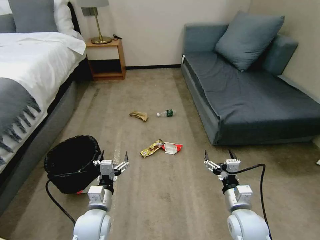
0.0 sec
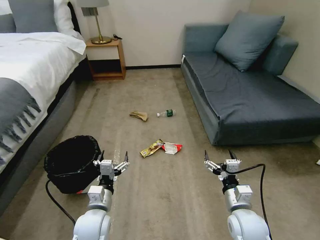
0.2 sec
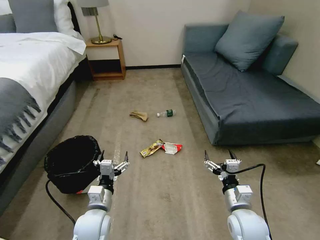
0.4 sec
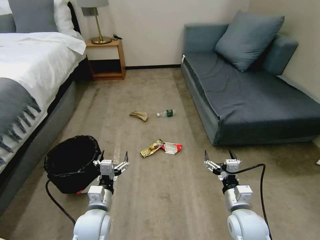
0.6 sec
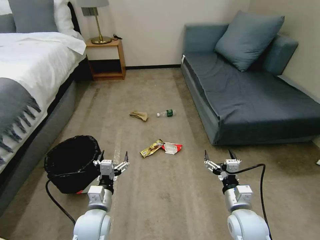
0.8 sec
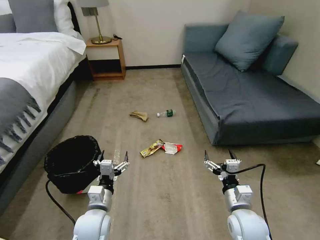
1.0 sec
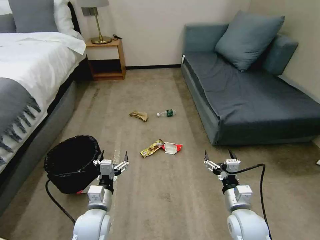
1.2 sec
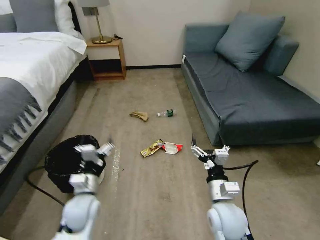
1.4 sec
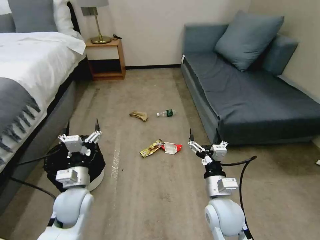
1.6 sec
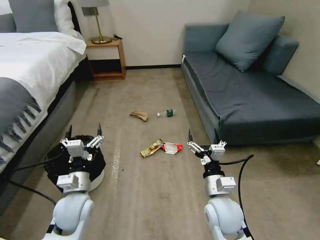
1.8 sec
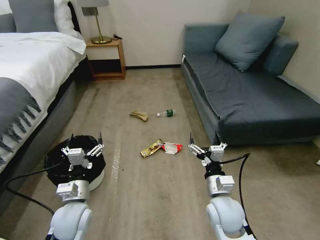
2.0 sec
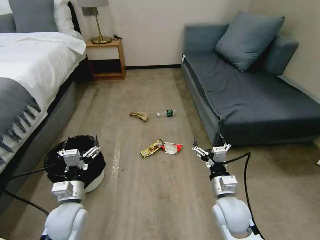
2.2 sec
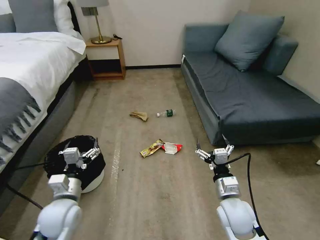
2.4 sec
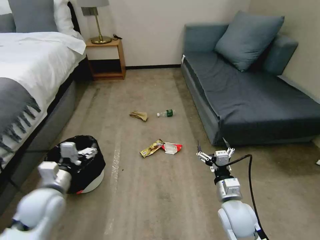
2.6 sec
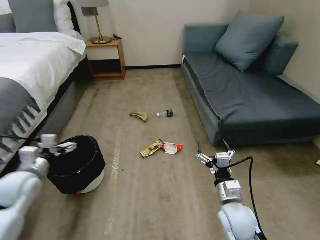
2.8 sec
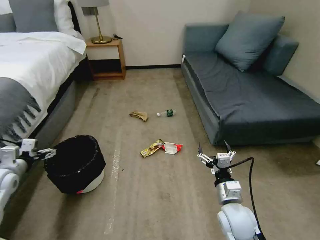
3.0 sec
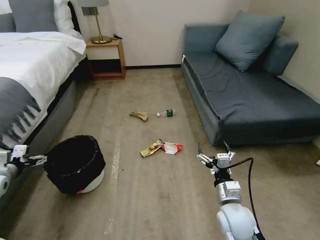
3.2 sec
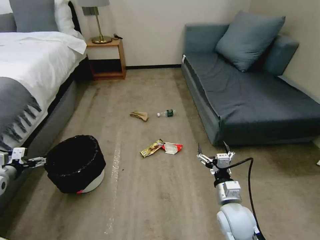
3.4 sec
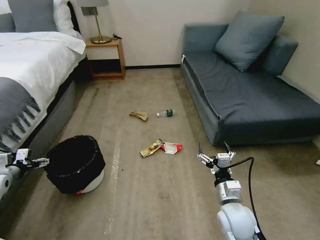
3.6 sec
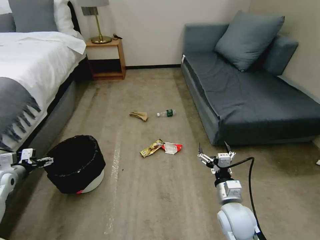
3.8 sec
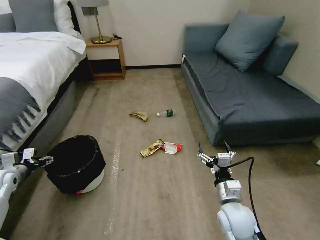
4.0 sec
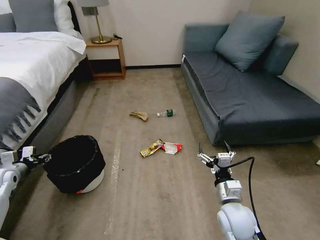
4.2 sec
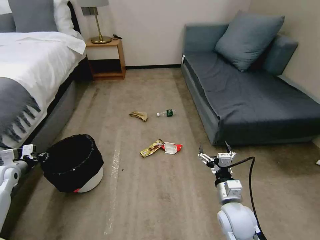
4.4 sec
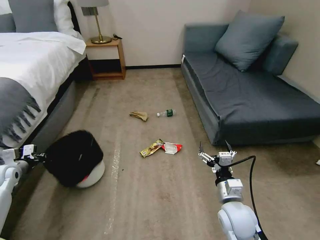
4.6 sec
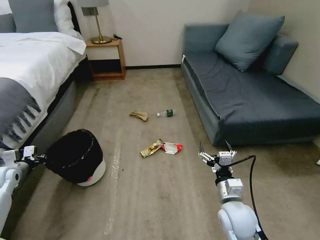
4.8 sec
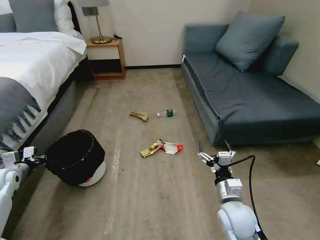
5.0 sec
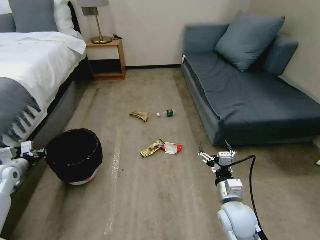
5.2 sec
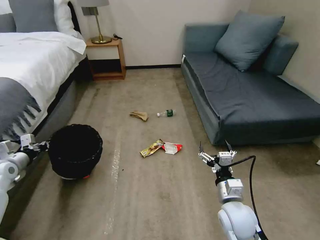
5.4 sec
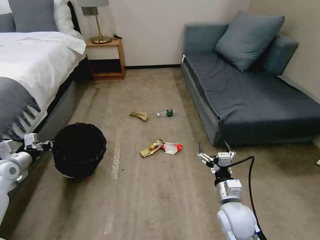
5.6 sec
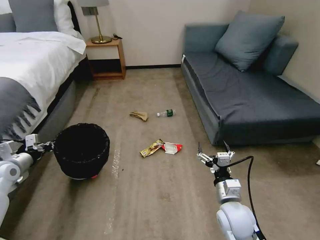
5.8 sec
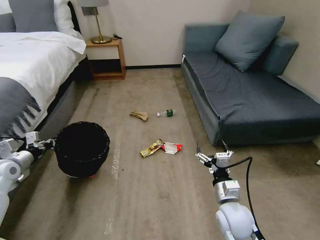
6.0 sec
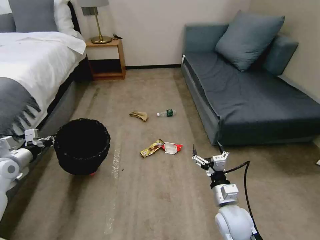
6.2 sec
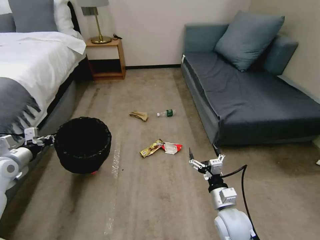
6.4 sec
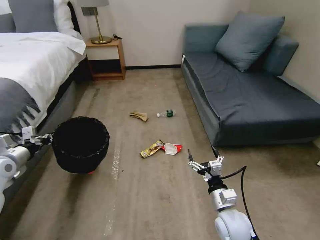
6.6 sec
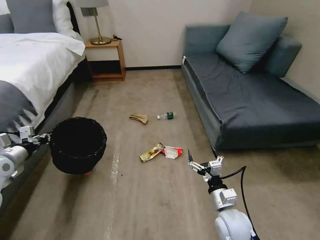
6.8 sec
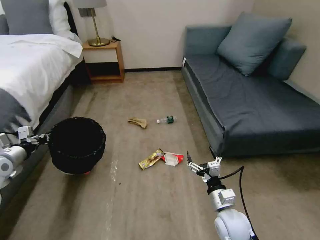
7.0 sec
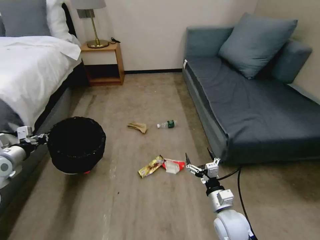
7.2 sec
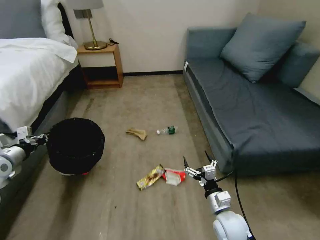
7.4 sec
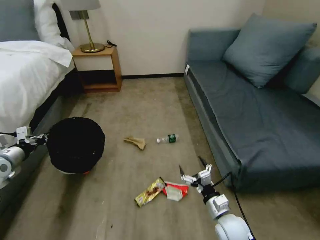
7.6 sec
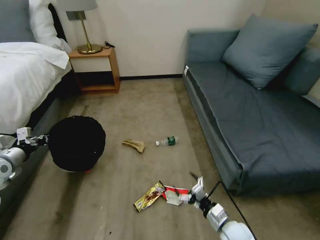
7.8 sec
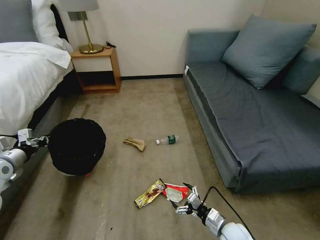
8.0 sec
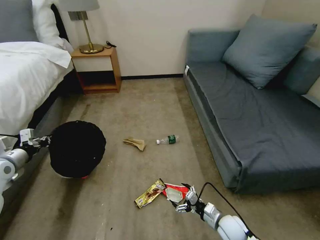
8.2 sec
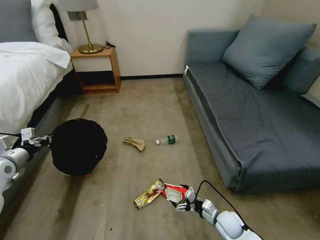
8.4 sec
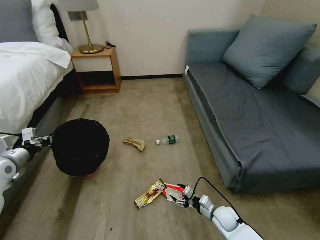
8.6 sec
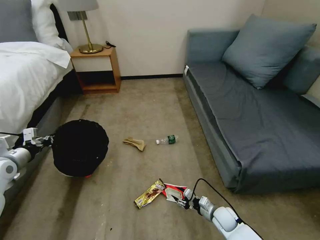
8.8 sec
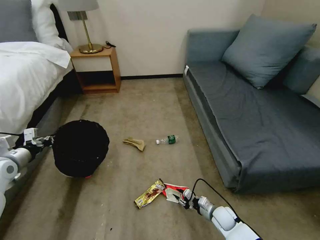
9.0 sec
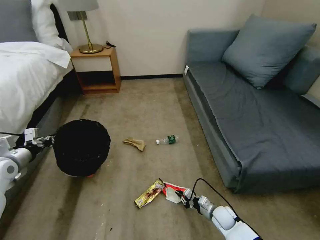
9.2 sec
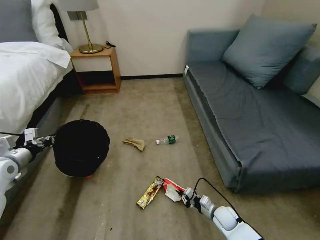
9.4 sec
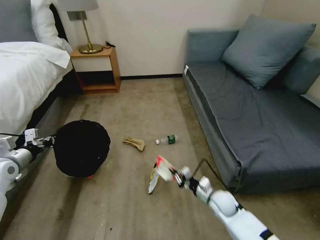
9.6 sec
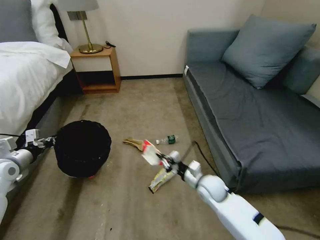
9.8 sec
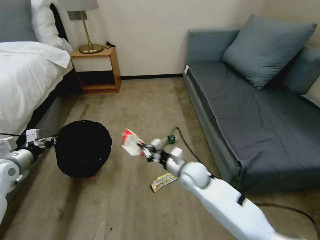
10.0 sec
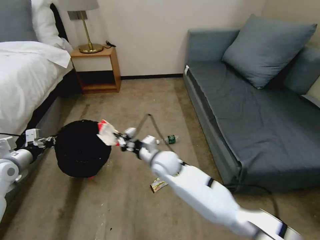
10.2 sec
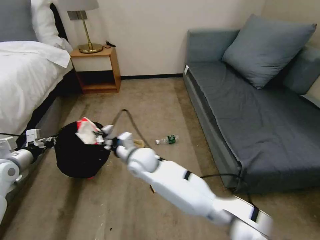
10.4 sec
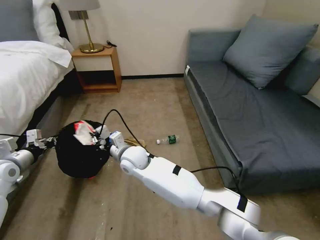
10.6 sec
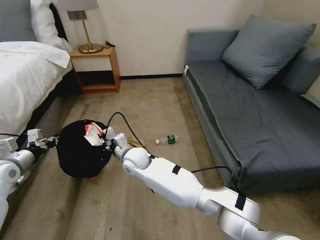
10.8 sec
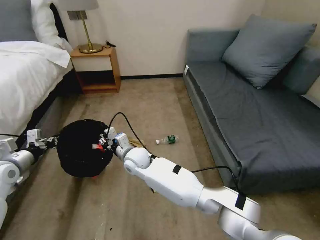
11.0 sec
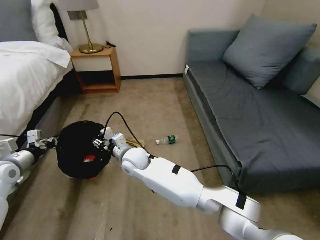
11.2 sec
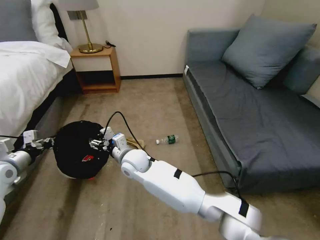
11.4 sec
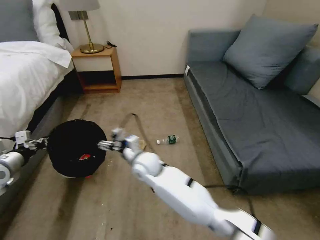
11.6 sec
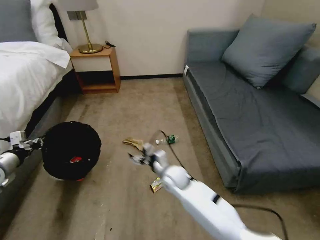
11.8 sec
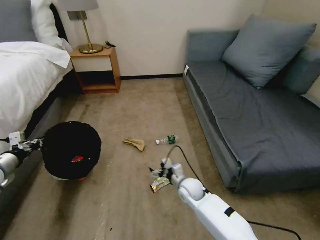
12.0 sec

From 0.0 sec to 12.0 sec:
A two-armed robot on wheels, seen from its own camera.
Task of the whole recording: Pick up the trash bin, then pick up the garbage on the floor and place it into the trash bin.
From 1.6 sec to 3.0 sec: The left gripper shifts roughly 25 cm to the left. Meanwhile the right gripper changes place by about 5 cm.
From 3.0 sec to 4.4 sec: The left gripper goes about 10 cm to the left and downward, and closes its fingers.
From 4.4 sec to 6.0 sec: The left gripper travels upward and to the right by some 10 cm.
From 6.0 sec to 7.6 sec: The right gripper is displaced downward by some 5 cm.
From 7.6 sec to 9.0 sec: The right gripper moves downward and forward, approximately 15 cm, and closes up.
From 9.0 sec to 10.4 sec: The right gripper goes approximately 40 cm to the left and upward.
From 10.4 sec to 12.0 sec: The right gripper is displaced to the right and downward by about 25 cm, and opens.

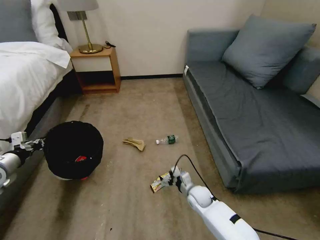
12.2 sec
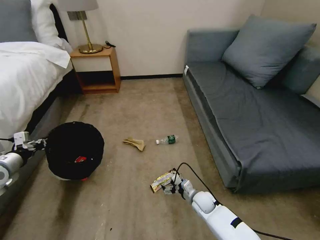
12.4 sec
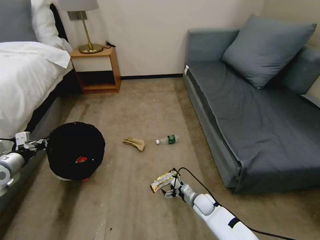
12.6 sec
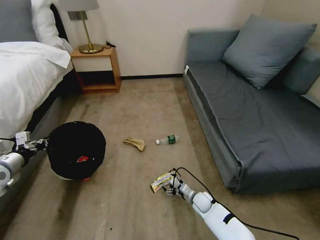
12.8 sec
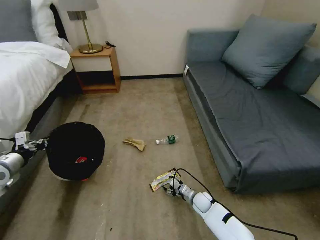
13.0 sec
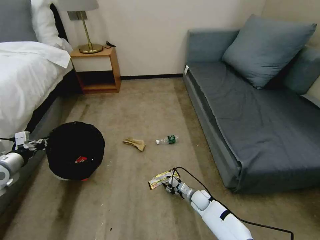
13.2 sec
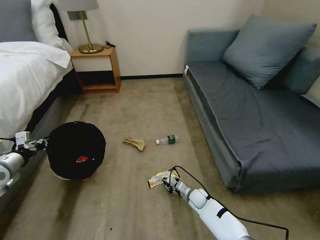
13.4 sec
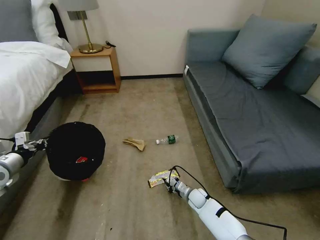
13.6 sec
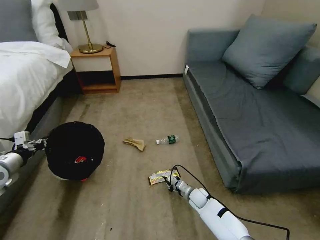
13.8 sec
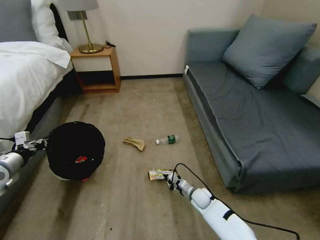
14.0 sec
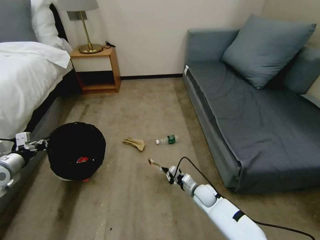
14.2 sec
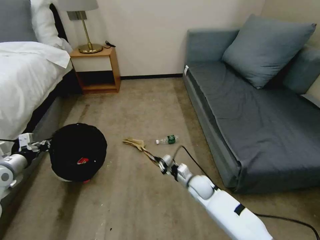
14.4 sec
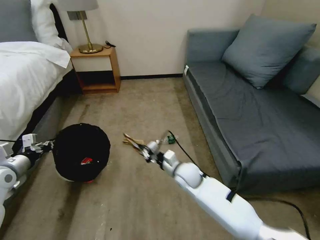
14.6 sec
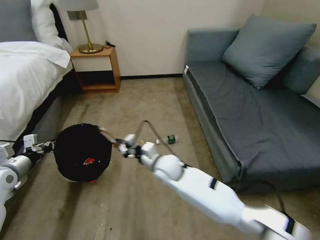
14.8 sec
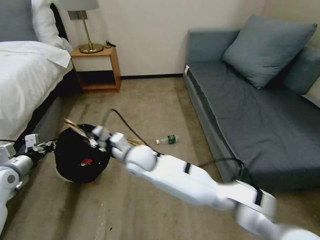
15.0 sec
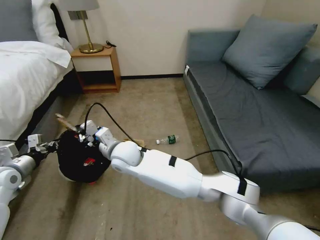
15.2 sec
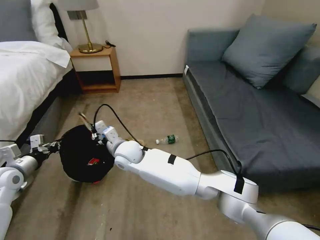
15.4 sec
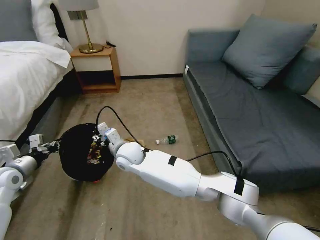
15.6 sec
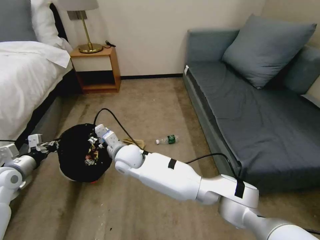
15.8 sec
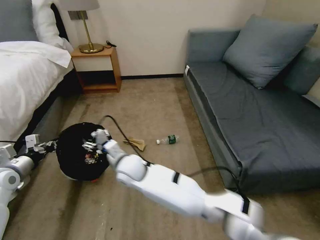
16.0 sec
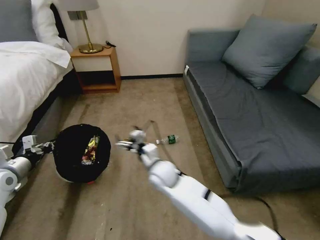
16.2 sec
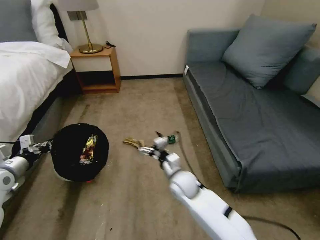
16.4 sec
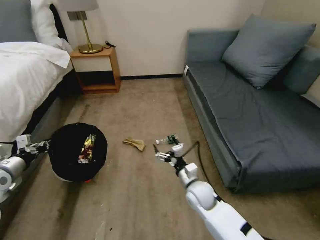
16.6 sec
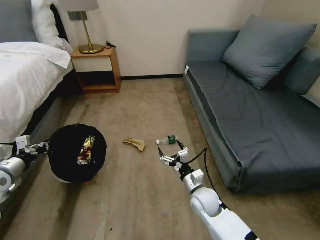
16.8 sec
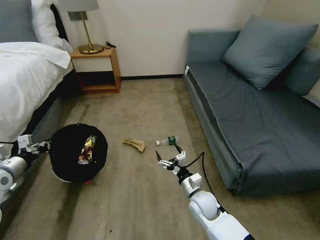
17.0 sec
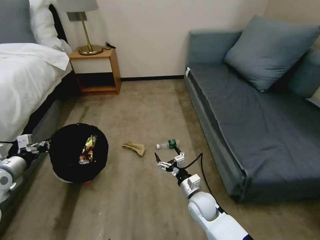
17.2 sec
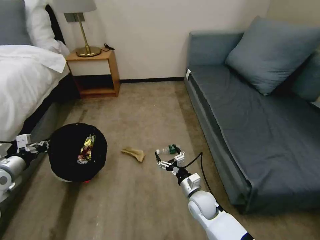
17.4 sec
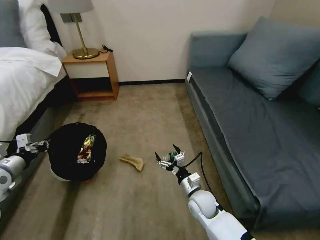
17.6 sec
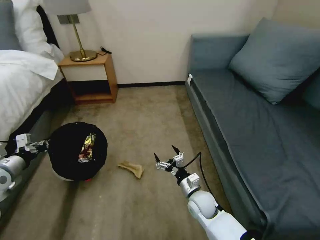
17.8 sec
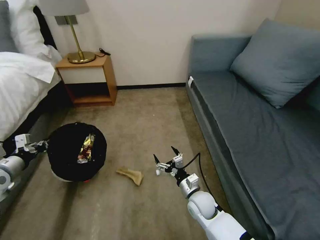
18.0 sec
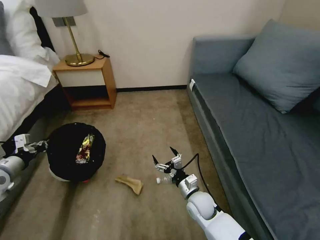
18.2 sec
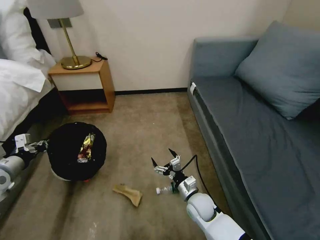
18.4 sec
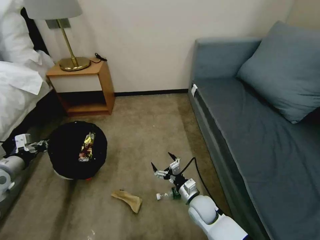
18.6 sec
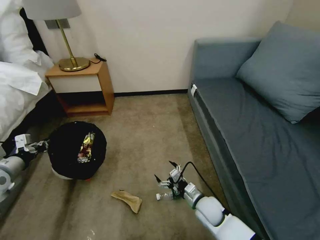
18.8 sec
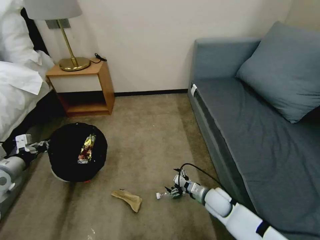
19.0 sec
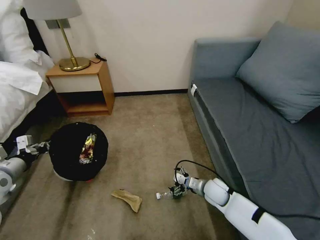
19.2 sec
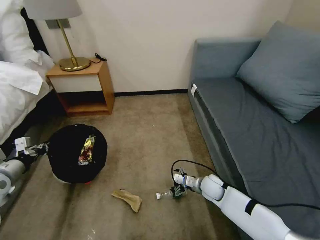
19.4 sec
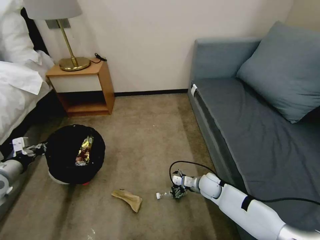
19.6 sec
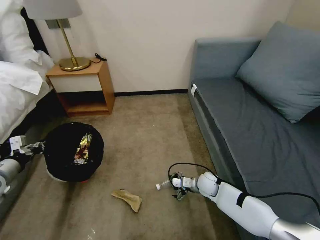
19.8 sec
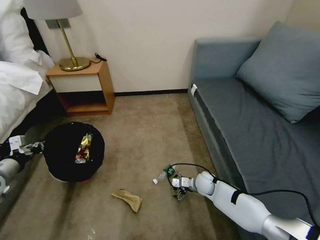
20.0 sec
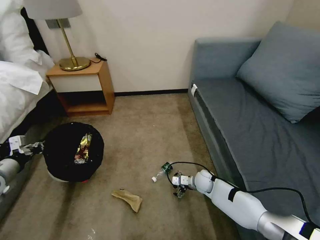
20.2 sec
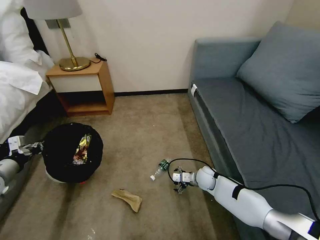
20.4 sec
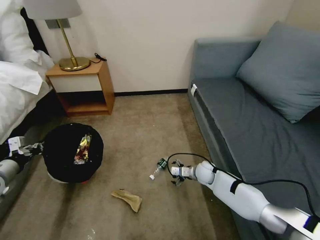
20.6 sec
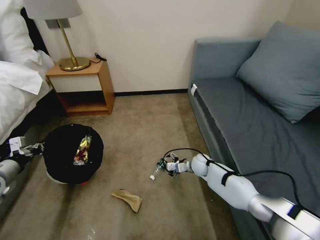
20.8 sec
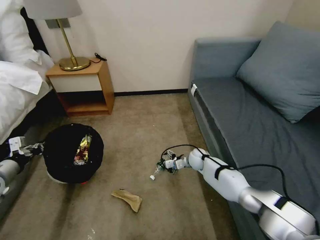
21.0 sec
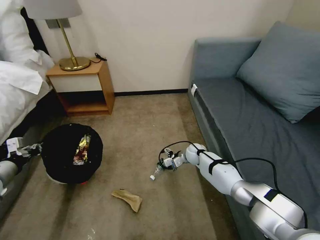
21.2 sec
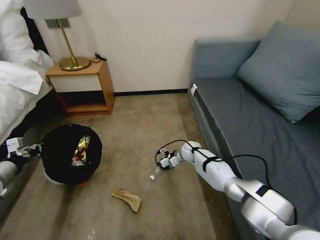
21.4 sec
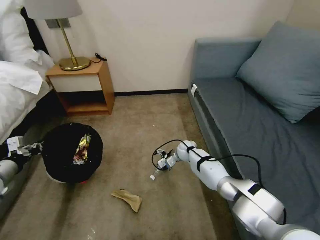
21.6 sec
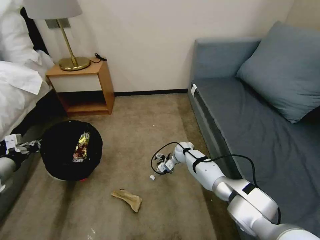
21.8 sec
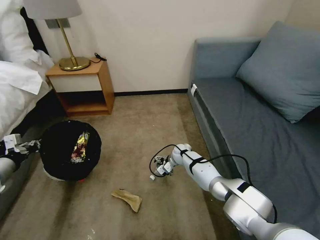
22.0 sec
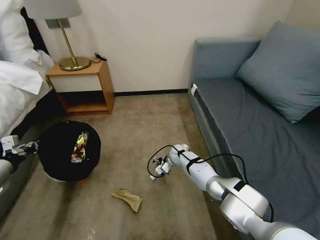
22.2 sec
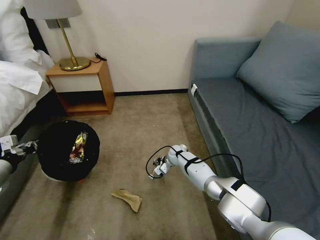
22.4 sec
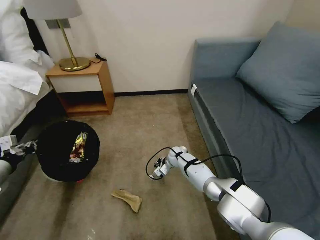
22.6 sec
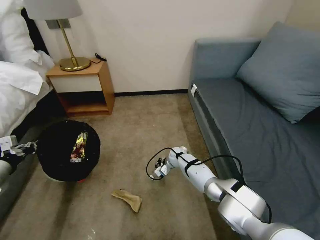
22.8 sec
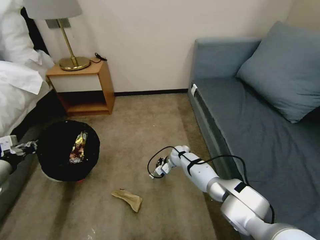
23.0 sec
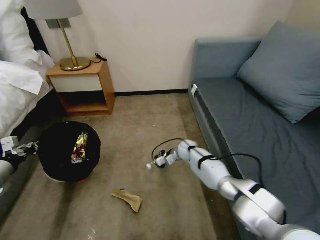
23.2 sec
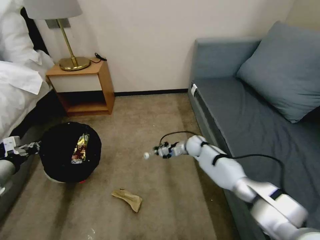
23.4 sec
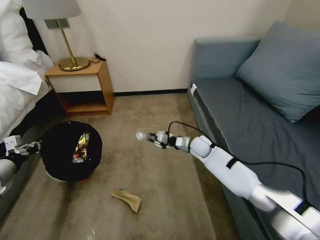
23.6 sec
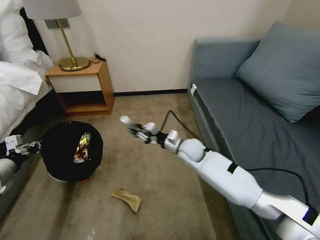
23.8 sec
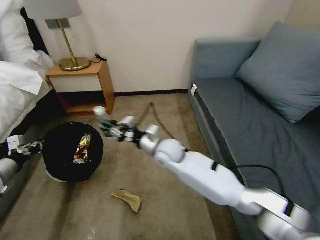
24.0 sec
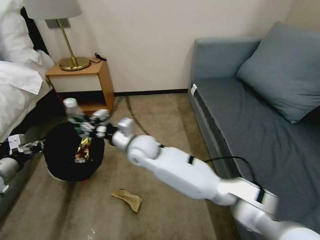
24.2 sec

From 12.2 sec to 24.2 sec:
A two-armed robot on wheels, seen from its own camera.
Task of the whole recording: Pick up the trash bin, then pick up the garbage on the floor and place it into the trash bin.
From 12.2 sec to 13.8 sec: The right gripper is displaced downward by some 10 cm, and closes its fingers.
From 13.8 sec to 15.2 sec: The right gripper heads upward and to the left, covering some 40 cm.
From 15.2 sec to 16.6 sec: The right gripper heads to the right and downward, covering about 30 cm, and opens.
From 18.2 sec to 19.8 sec: The right gripper is displaced forward and to the right by about 10 cm.
From 19.8 sec to 21.2 sec: The right gripper is displaced forward by about 15 cm.
From 21.2 sec to 22.6 sec: The right gripper shifts some 10 cm to the left, and closes its fingers.
From 22.6 sec to 24.2 sec: The right gripper shifts roughly 30 cm upward, to the left and backward.
